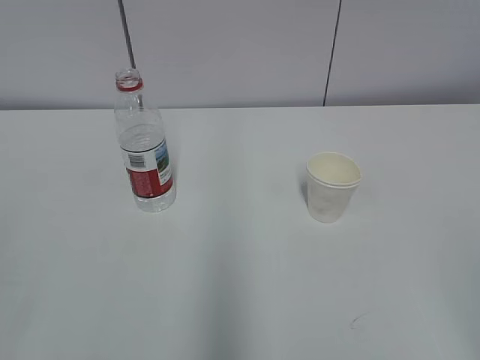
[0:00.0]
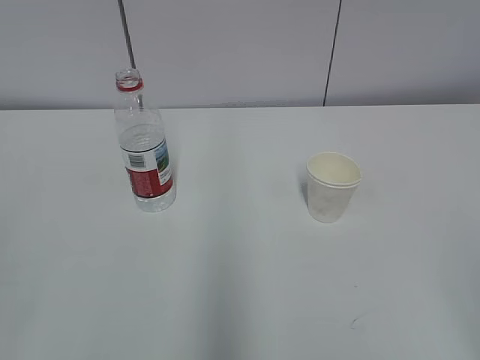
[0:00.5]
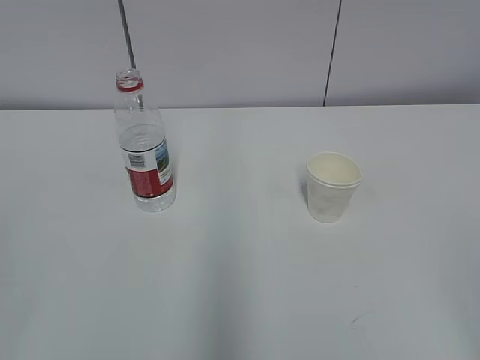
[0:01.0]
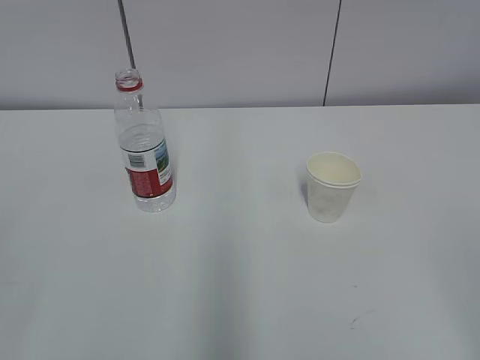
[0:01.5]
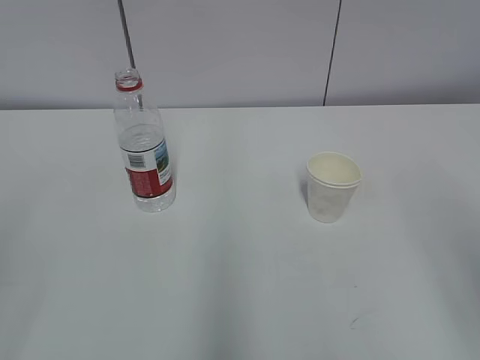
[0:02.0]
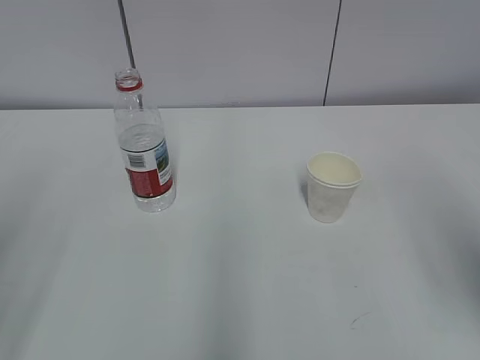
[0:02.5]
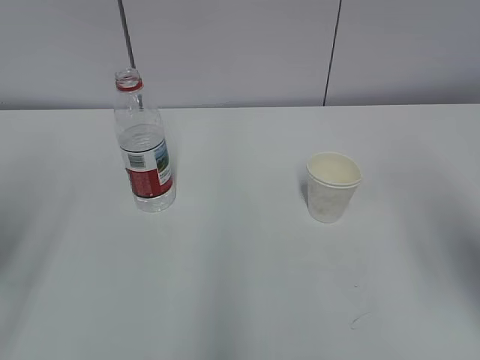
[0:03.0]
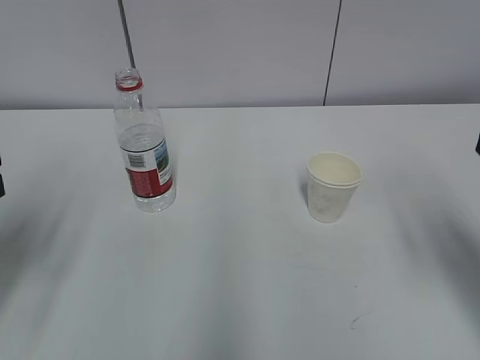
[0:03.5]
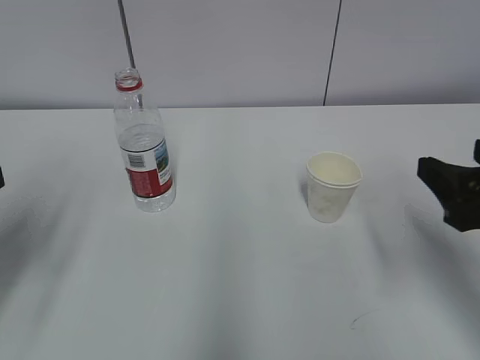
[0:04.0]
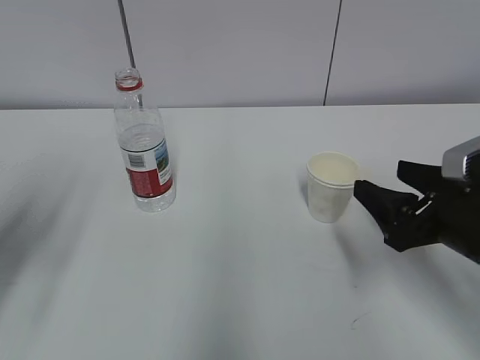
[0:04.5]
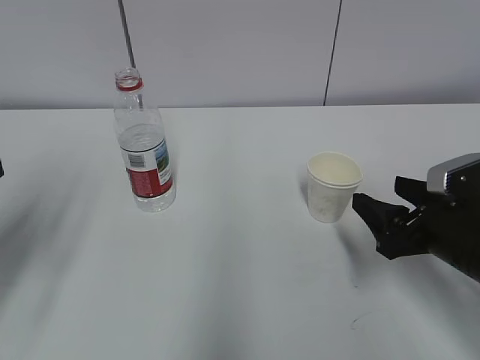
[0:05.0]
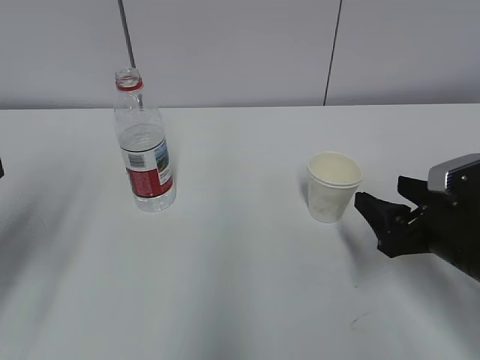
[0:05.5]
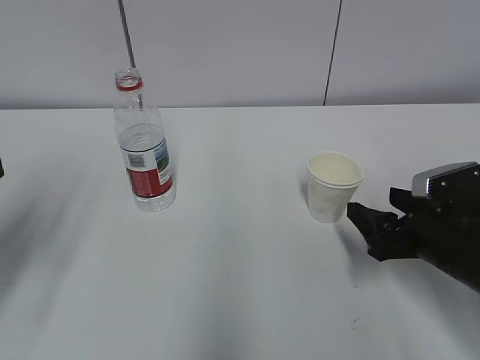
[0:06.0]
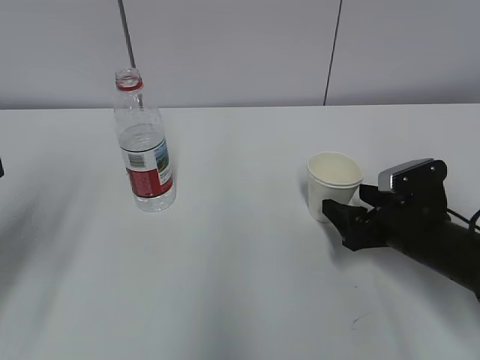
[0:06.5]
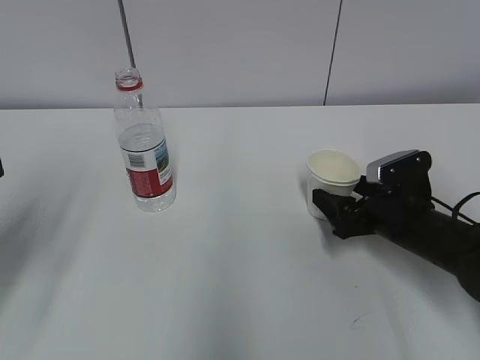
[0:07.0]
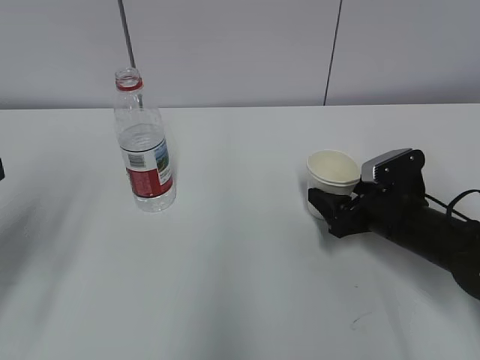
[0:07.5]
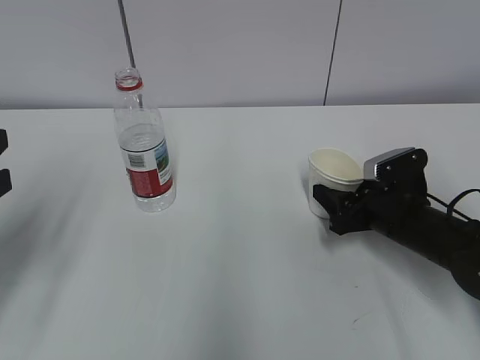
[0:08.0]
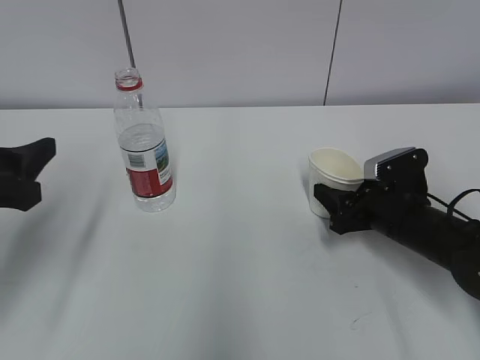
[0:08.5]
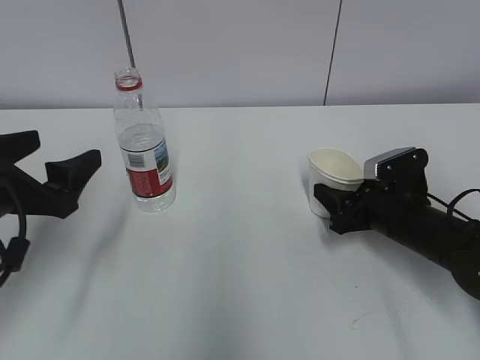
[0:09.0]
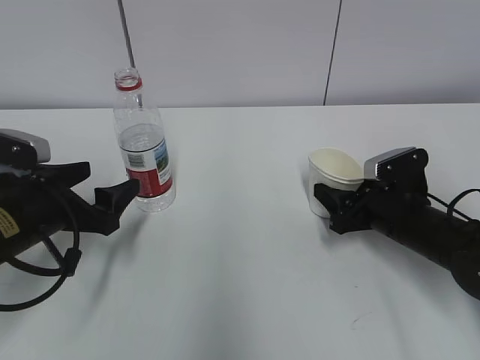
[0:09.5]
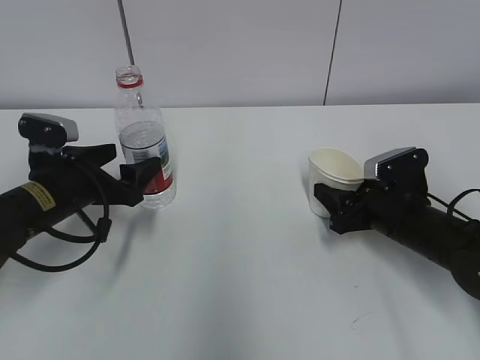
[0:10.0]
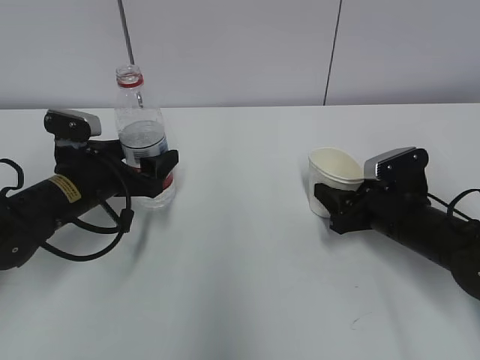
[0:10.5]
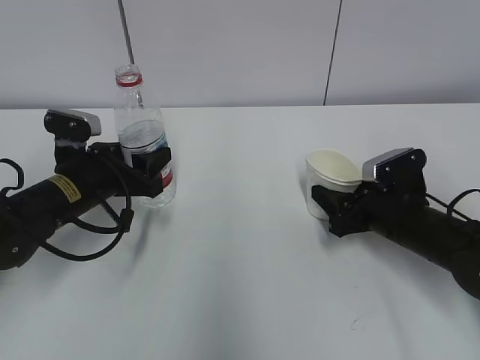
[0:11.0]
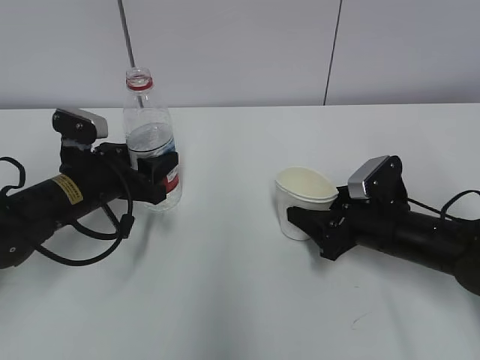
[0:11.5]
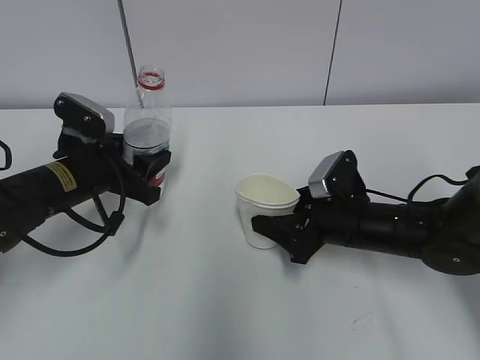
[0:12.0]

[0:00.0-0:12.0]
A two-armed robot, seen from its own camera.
Step, 0:00.0 to 0:09.0: Grab the paper cup with the right hand.
0:02.0 to 0:04.0: The right gripper travels forward and downward by approximately 15 cm, while the left gripper shifts some 15 cm forward.
0:04.0 to 0:06.0: The right gripper travels downward and forward by roughly 15 cm.
0:06.0 to 0:08.0: The right gripper is displaced forward by approximately 5 cm, and closes its fingers.
0:08.0 to 0:10.0: The left gripper goes about 20 cm forward, downward and to the right, and opens.
0:10.0 to 0:12.0: The left gripper closes; the right gripper heads to the left, covering approximately 5 cm.

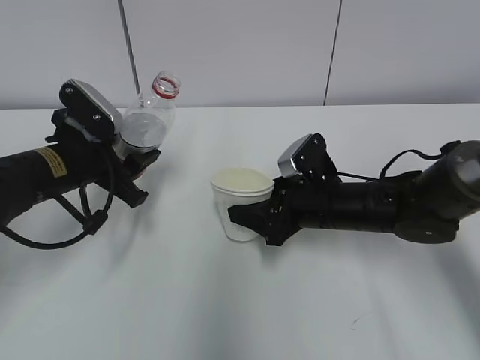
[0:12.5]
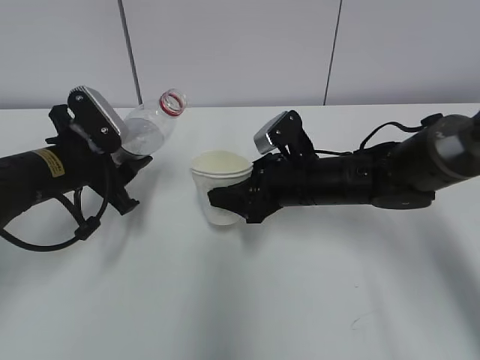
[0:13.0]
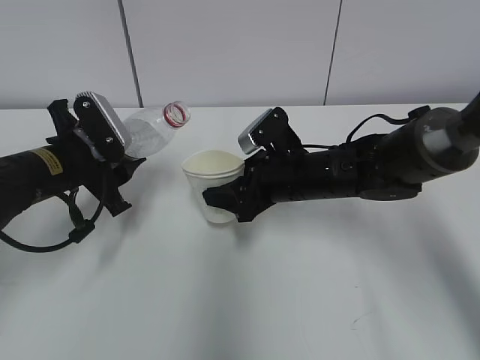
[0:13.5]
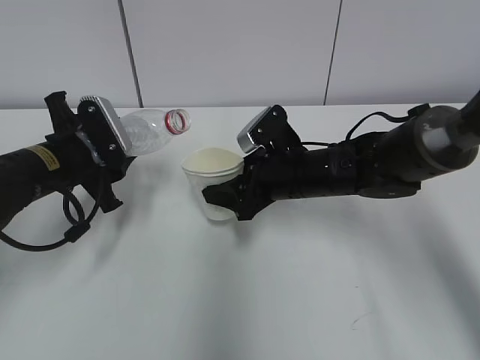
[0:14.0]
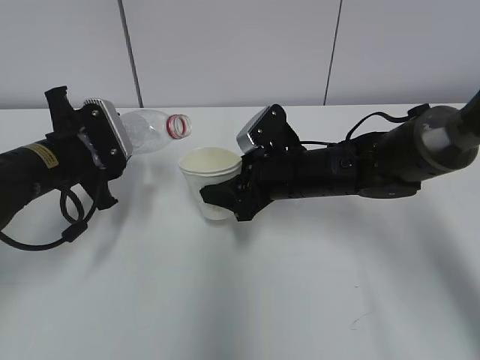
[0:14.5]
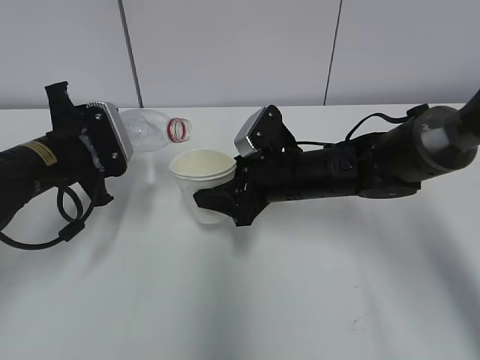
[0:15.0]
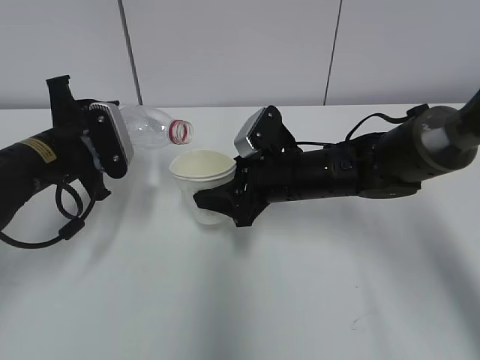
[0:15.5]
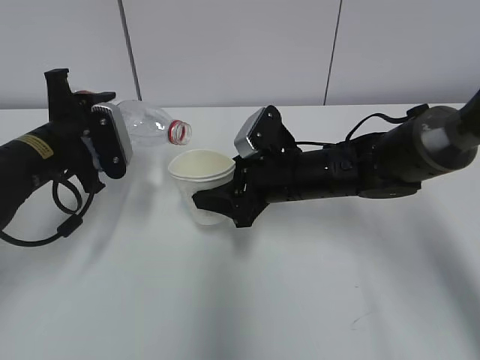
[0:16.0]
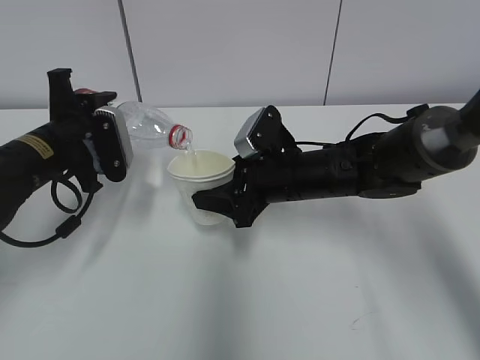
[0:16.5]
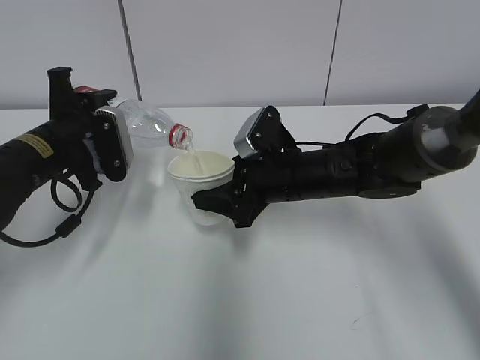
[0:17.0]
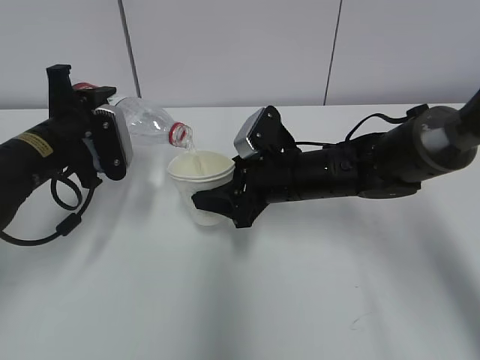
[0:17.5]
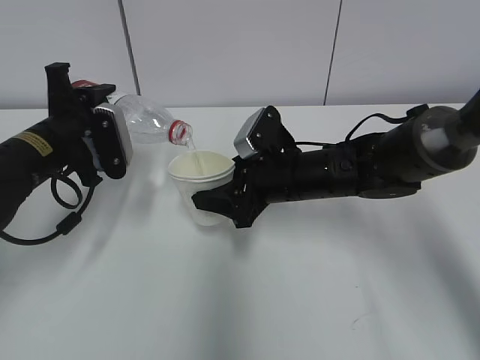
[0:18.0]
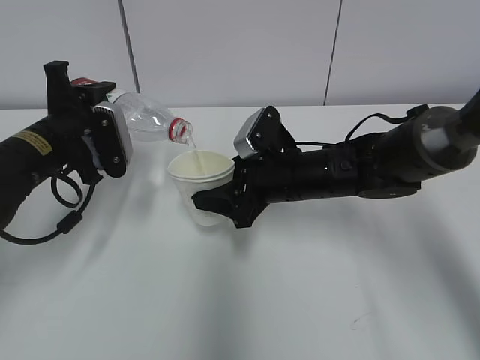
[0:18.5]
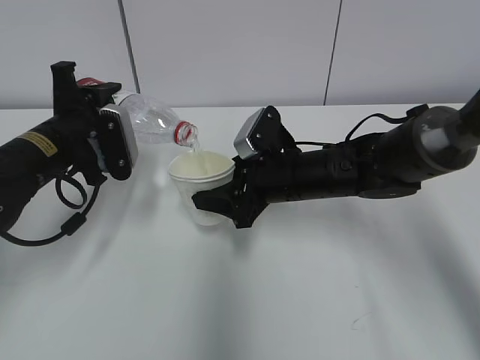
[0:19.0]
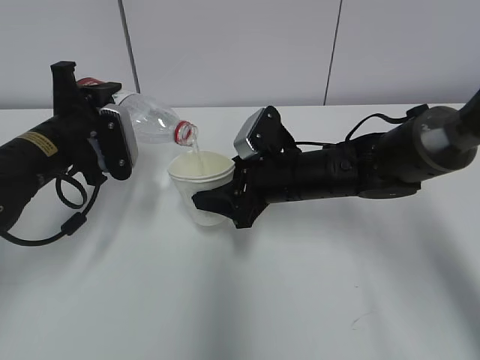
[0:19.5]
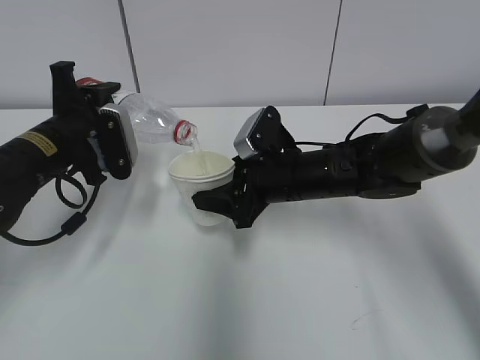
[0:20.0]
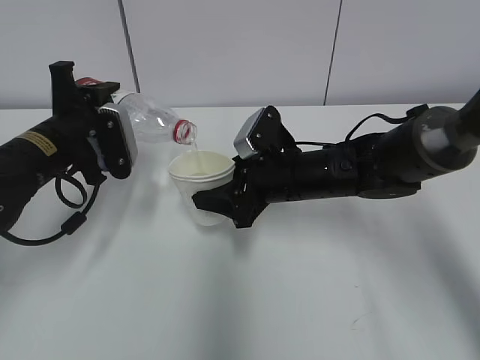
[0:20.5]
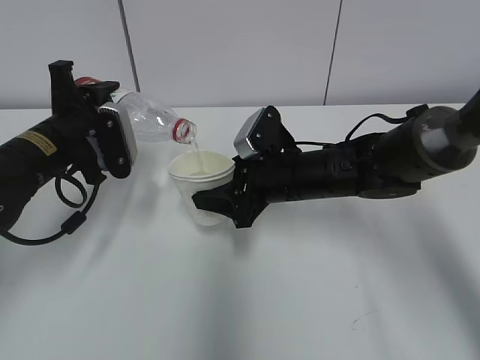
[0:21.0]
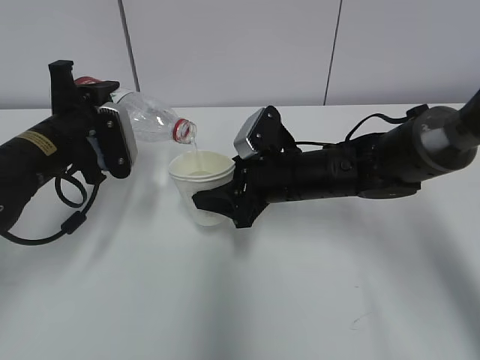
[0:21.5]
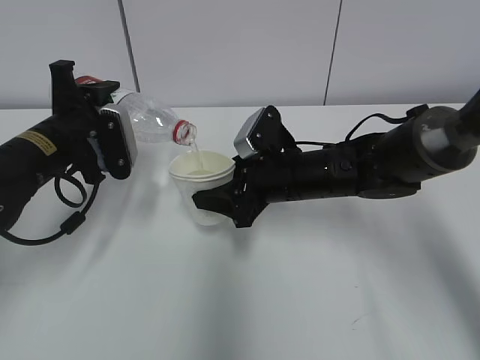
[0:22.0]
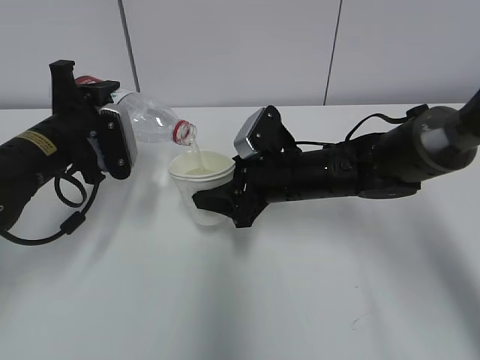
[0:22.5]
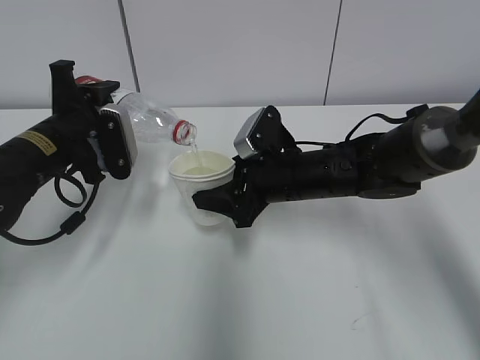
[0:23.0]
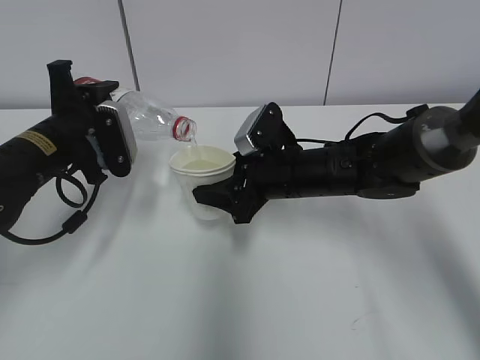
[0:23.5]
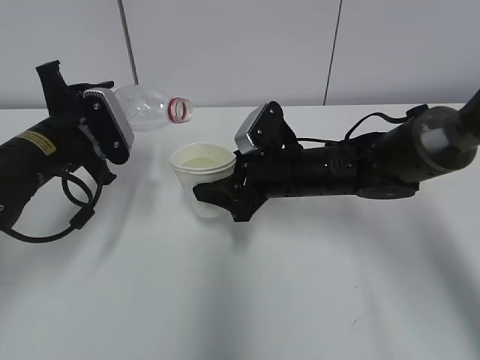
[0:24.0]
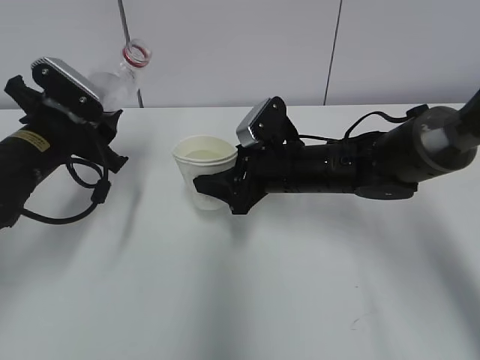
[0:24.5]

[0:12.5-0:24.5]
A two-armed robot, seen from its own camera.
Step, 0:14.0 to 0:19.5: Fill water with the right hand.
Step, 0:14.0 to 0:19.5: Pour water with the left hand.
Step, 0:21.5 to 0:24.5: Place the paper cup with the right hand.
0:12.5 to 0:14.5: The right gripper ends up some 5 cm from where it was.
0:16.5 to 0:20.5: Both grippers stay about where they are.
0:20.5 to 0:22.5: Both grippers stay about where they are.

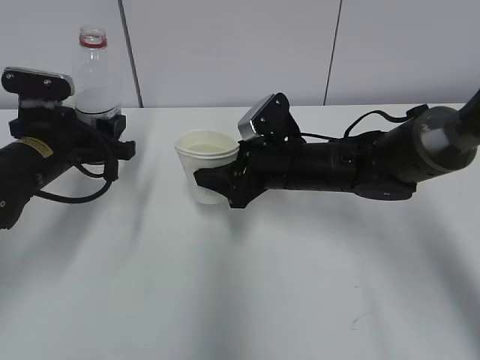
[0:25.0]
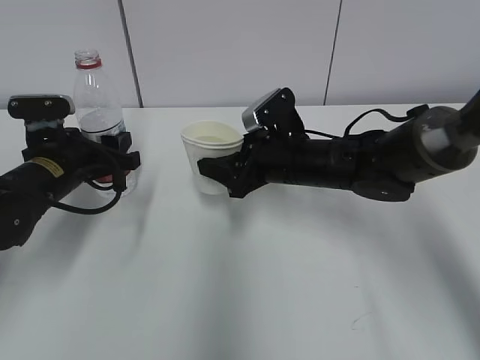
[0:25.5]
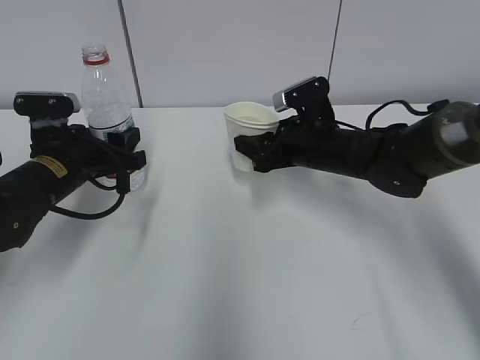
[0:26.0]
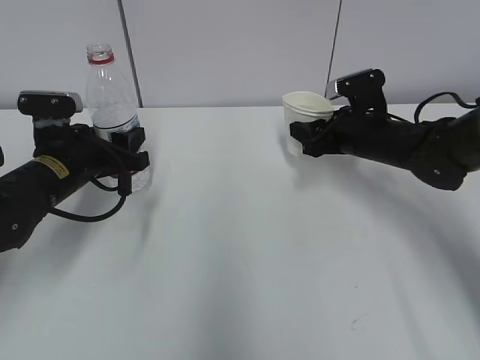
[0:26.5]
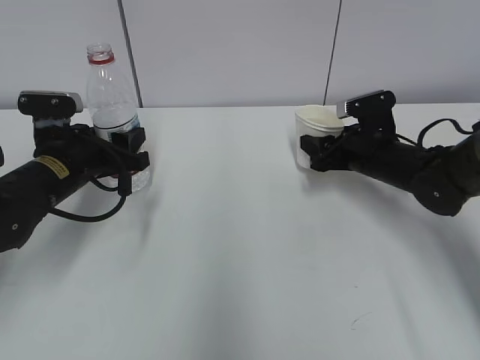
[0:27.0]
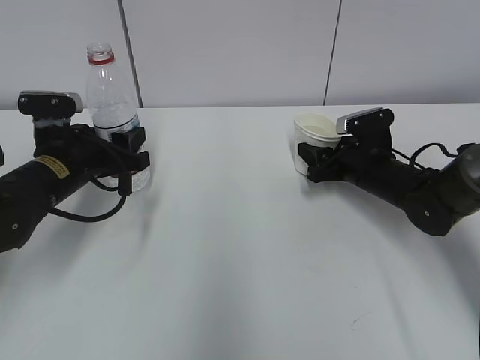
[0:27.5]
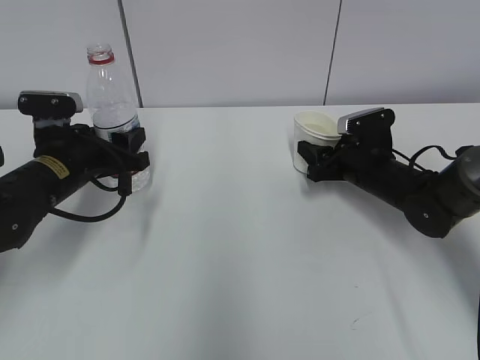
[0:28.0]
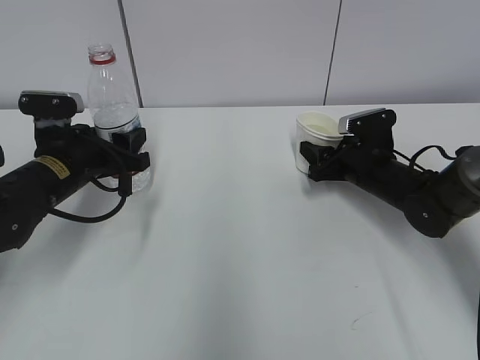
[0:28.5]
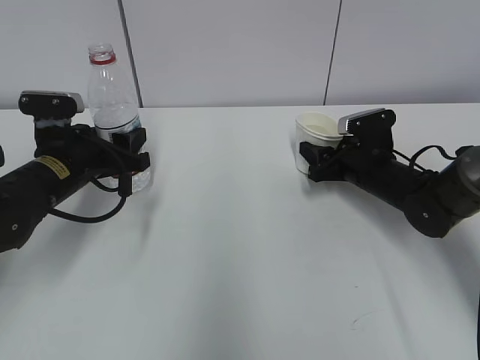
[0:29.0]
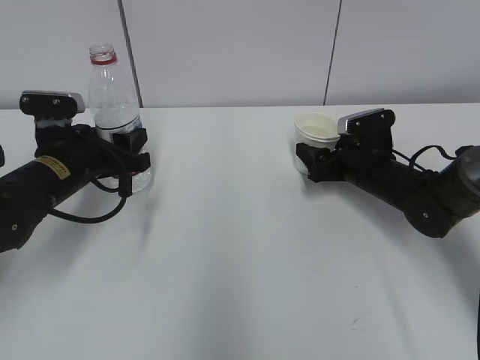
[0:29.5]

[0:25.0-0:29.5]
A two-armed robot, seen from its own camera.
Step, 0:25.0 to 0:26.5: Place the water bottle with the left hand.
0:25.0 to 0:27.0: The right gripper heads to the right, covering some 15 cm.
0:27.0 to 0:29.5: The right gripper opens.
